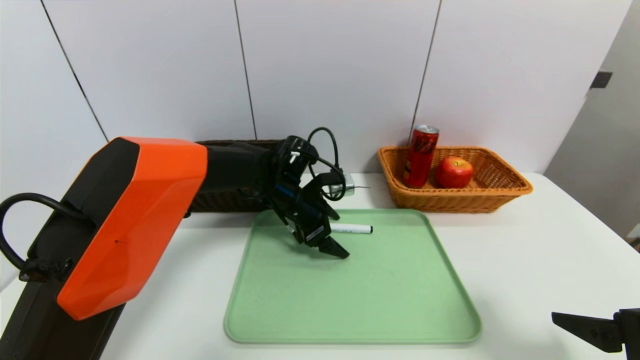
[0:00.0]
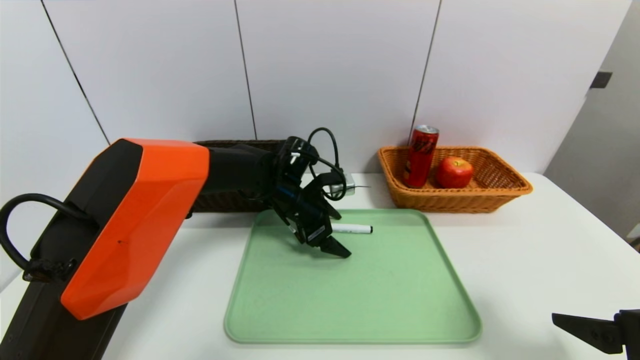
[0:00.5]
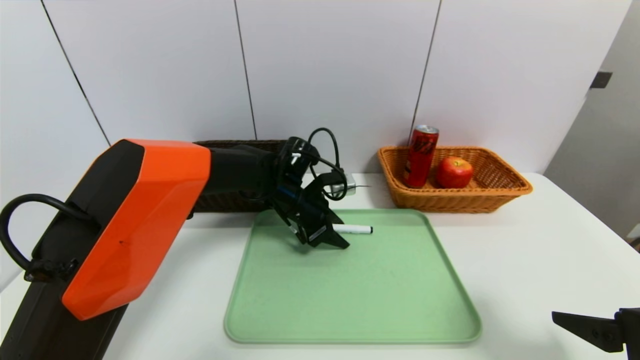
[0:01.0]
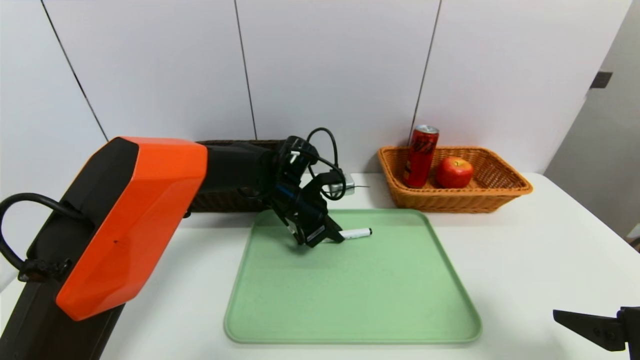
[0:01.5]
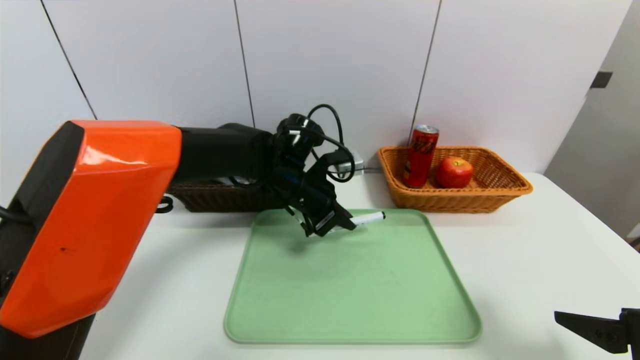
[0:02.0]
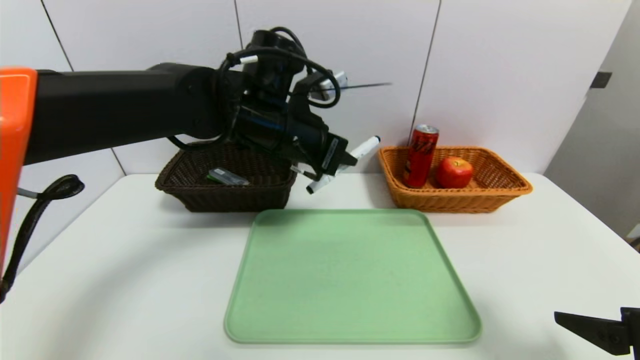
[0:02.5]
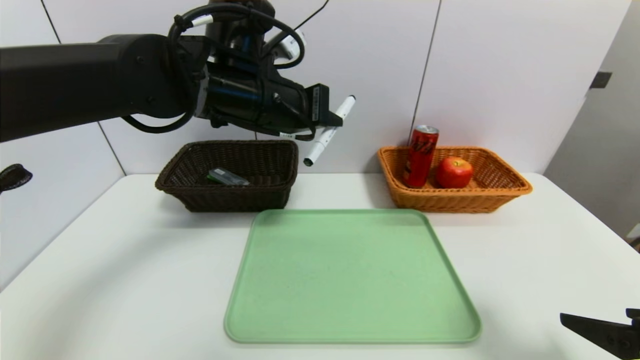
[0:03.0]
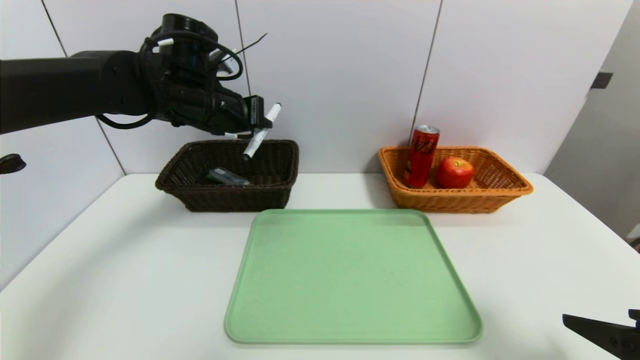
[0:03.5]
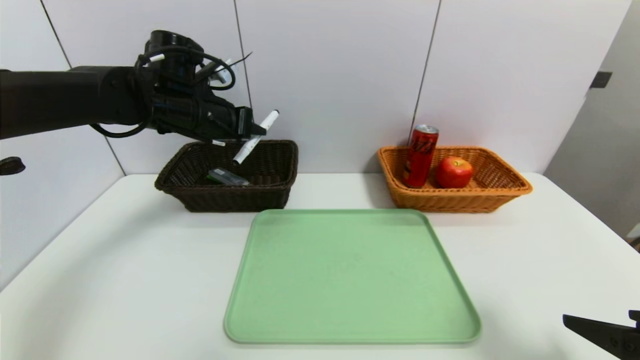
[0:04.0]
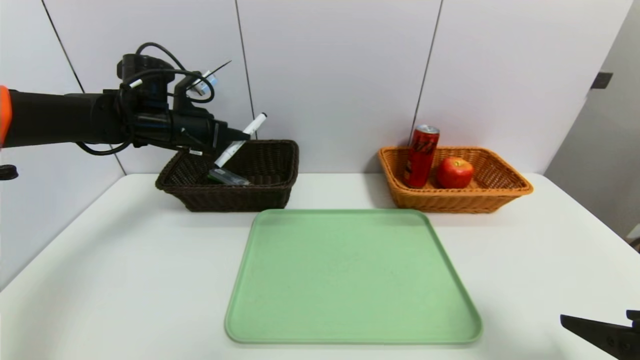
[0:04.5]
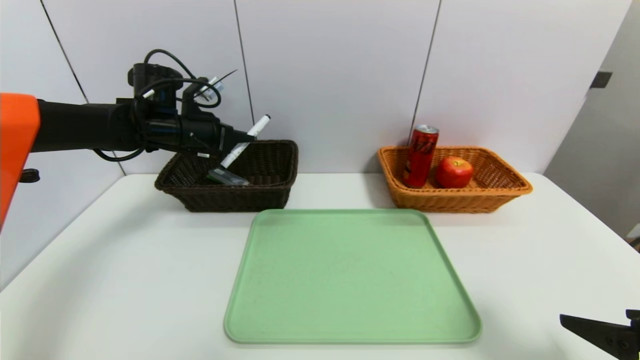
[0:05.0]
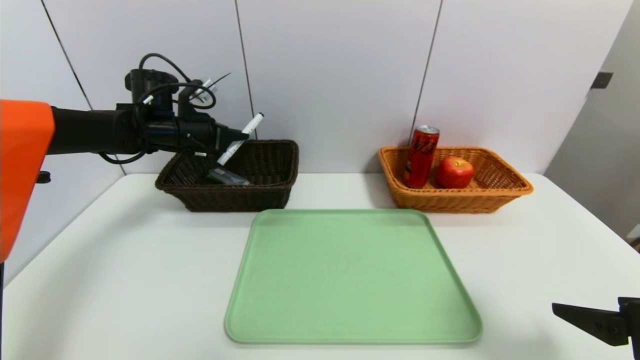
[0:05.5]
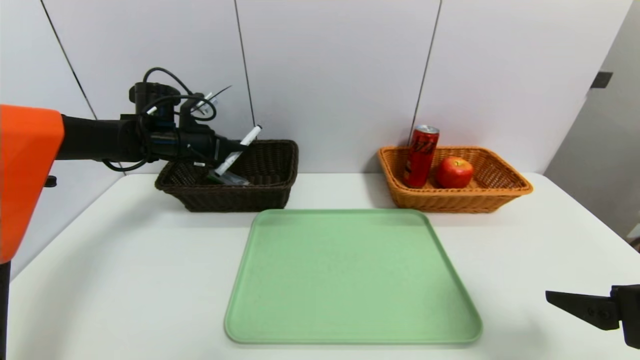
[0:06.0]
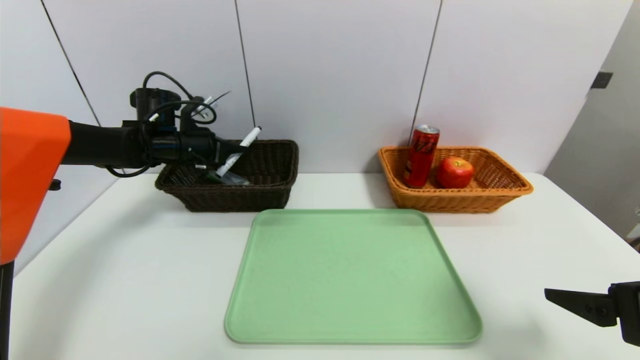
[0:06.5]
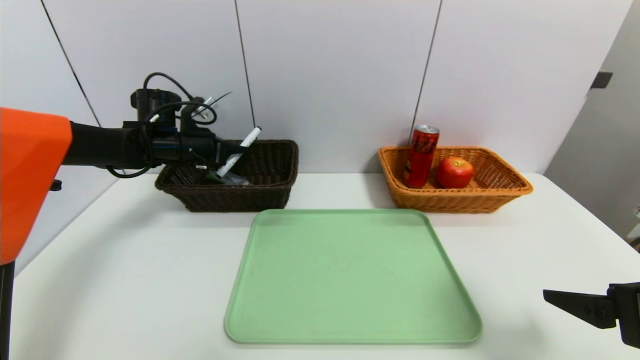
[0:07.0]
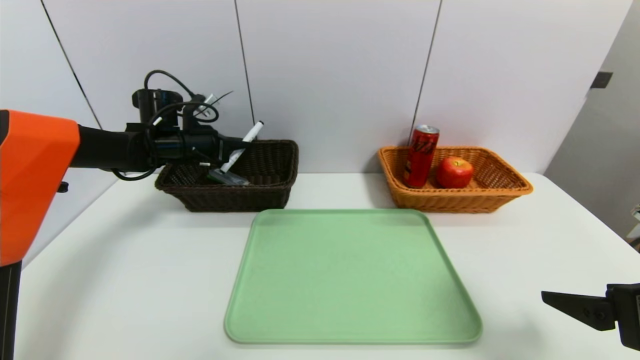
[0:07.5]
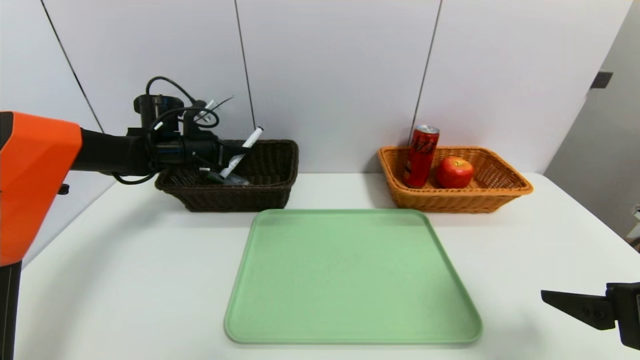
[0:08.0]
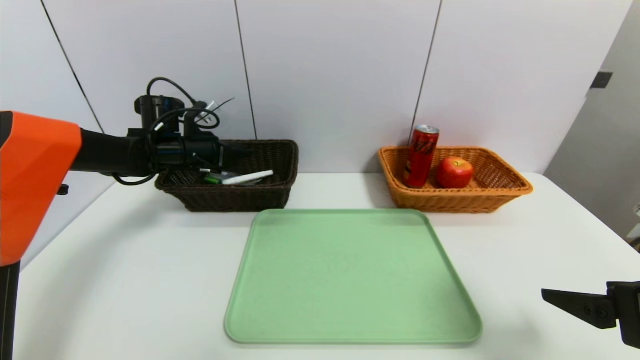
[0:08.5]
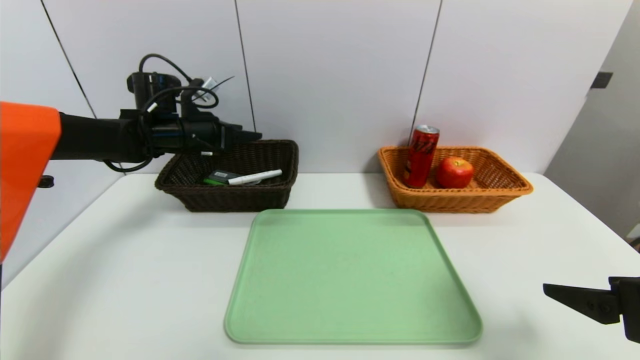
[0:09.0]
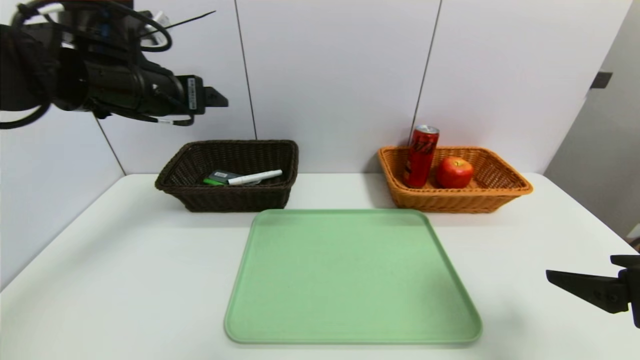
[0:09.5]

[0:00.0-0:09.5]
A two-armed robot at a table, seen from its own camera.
Task of the whole recording: place the food in the right basket with the right gripper, and place the non food items in the left basket with the left gripper.
Step, 0:00.0 to 0:08.5: Grasp the black marker and put it in the left basket.
0:00.0 to 0:02.0: The left gripper travels upward by some 5 cm, and closes its fingers.
0:02.0 to 0:04.0: The left gripper goes some 20 cm to the left and upward.
0:04.0 to 0:05.5: The left gripper travels to the left and forward by roughly 5 cm.
0:05.5 to 0:07.5: The grippers stay close to where they were, moving slightly.
0:07.5 to 0:09.5: The left gripper goes approximately 20 cm backward and upward, and opens its fingers.

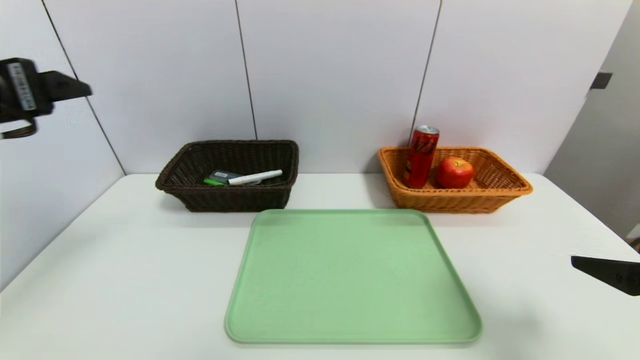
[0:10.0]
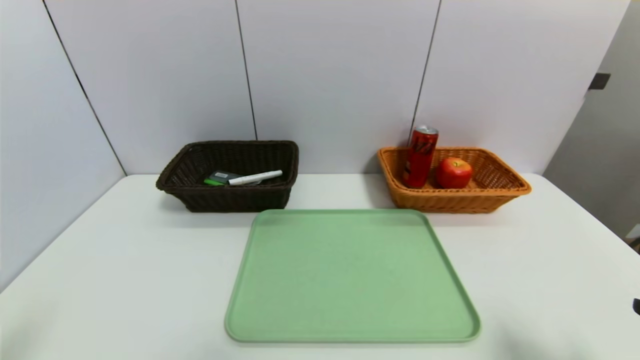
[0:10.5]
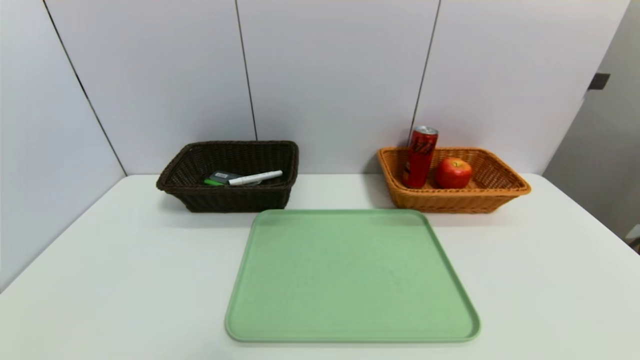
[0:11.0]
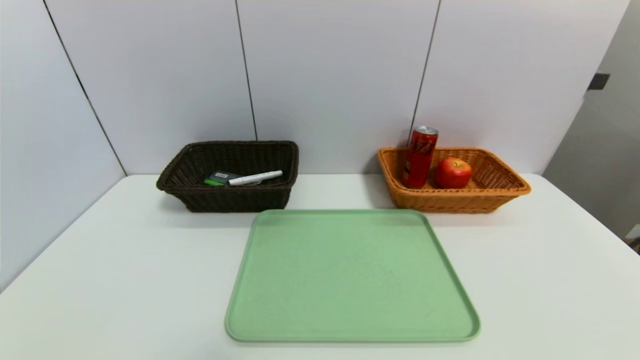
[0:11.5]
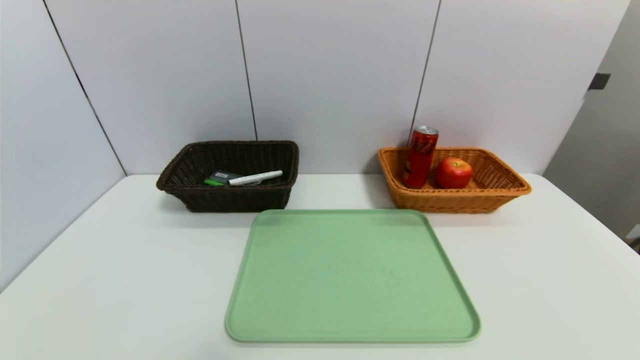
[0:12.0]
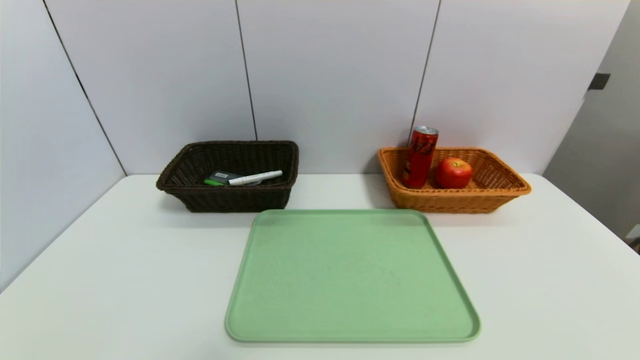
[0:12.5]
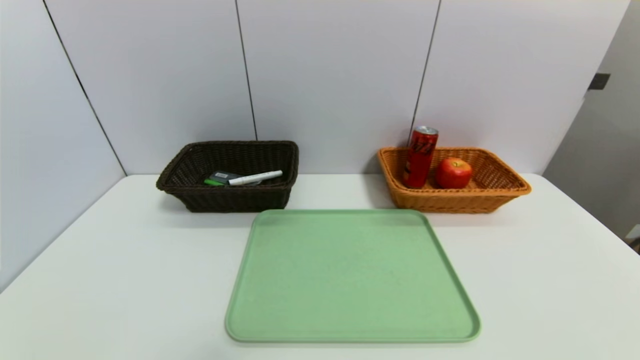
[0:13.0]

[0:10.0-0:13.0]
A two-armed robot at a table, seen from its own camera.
Task of the whole recording: place the food in the right basket with the right gripper, and place the non food items in the left basket with the left gripper.
0:10.0 to 0:11.5: The left gripper goes approximately 30 cm downward and backward, while the right gripper shifts some 20 cm backward and downward.

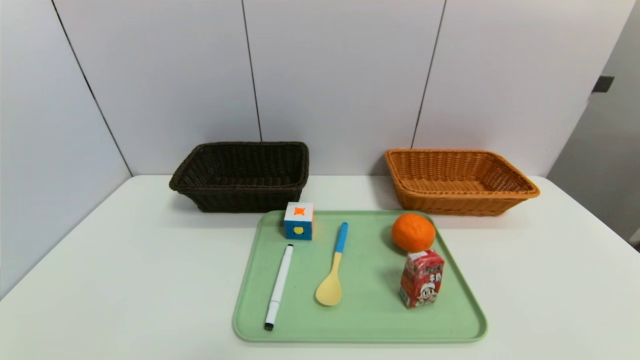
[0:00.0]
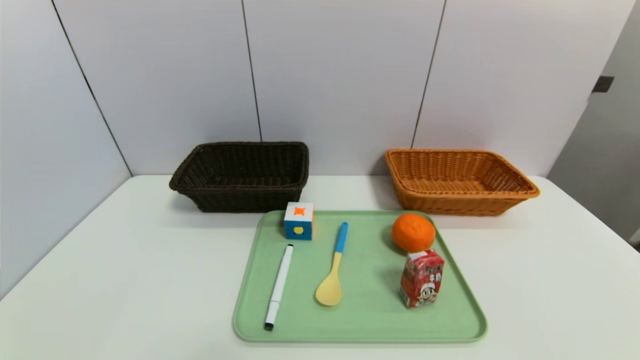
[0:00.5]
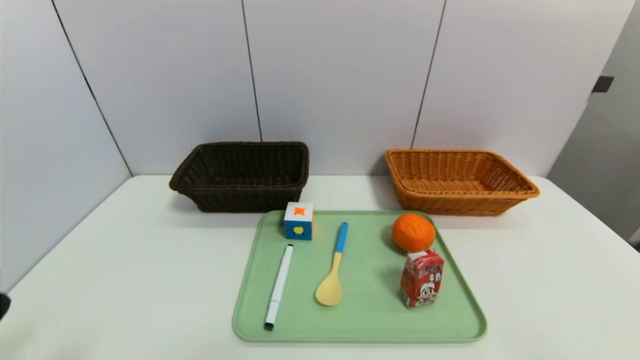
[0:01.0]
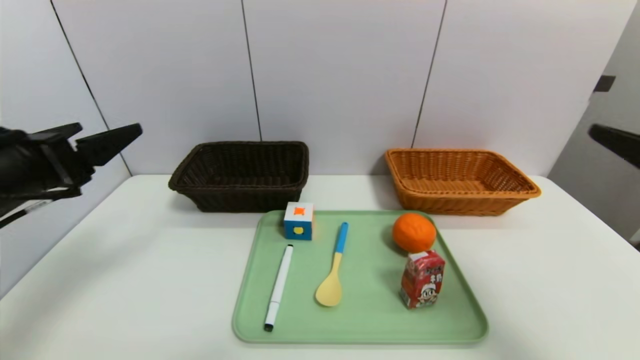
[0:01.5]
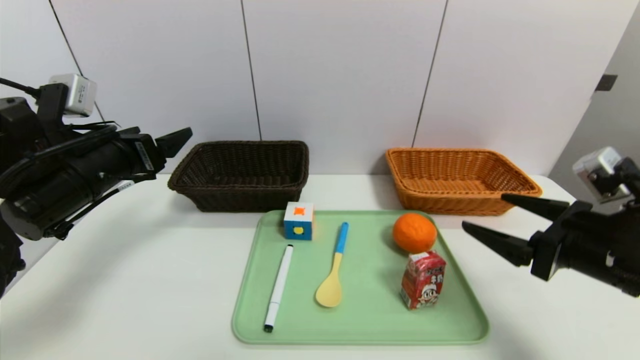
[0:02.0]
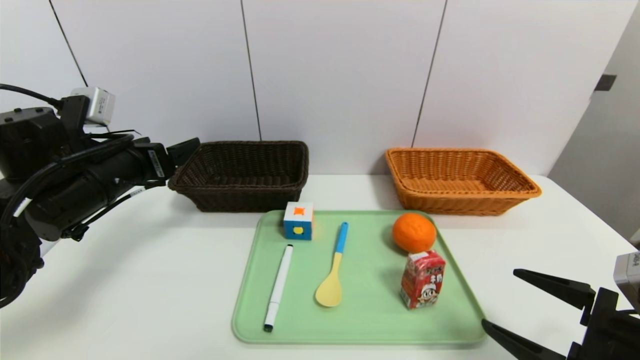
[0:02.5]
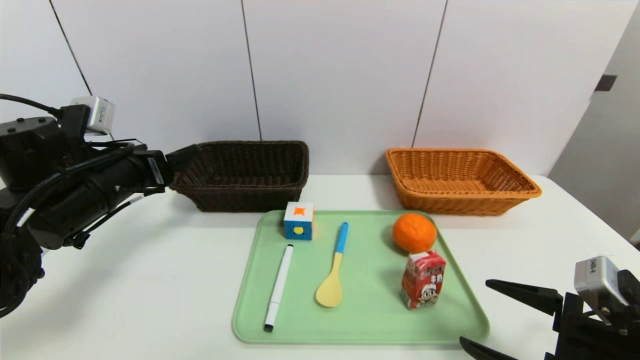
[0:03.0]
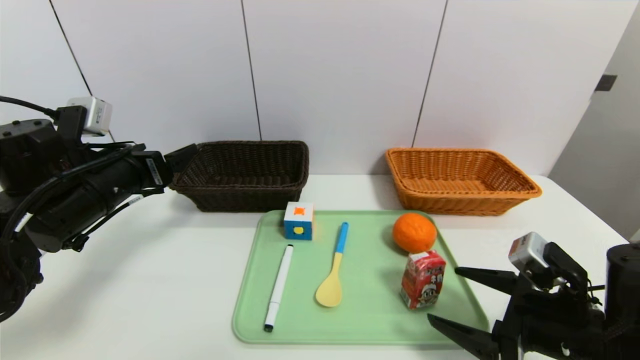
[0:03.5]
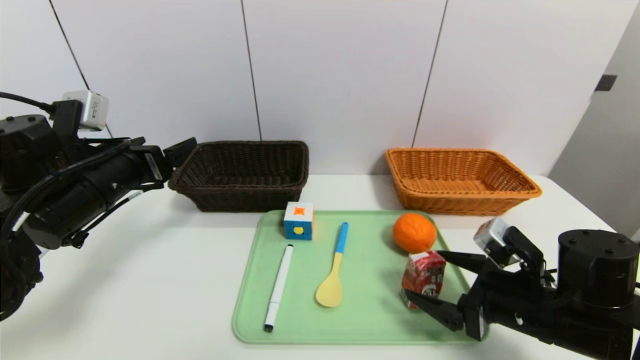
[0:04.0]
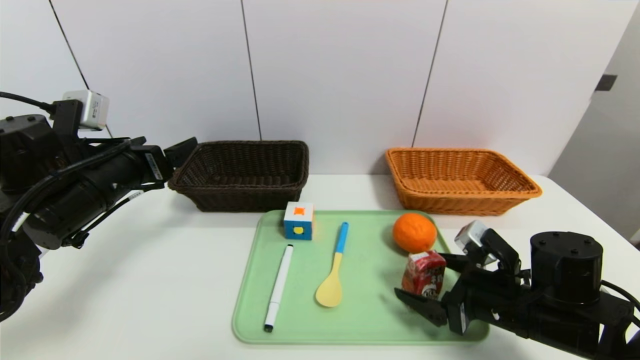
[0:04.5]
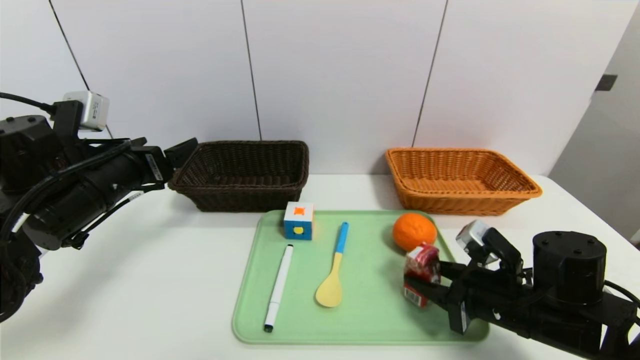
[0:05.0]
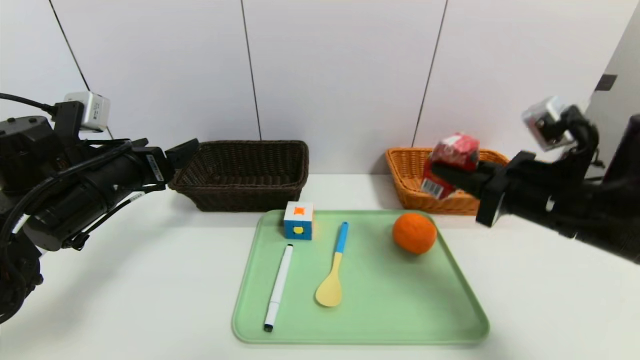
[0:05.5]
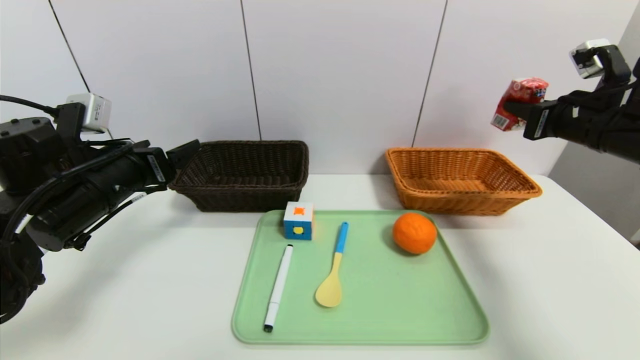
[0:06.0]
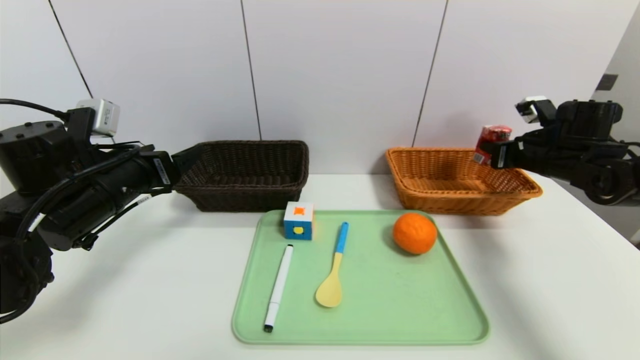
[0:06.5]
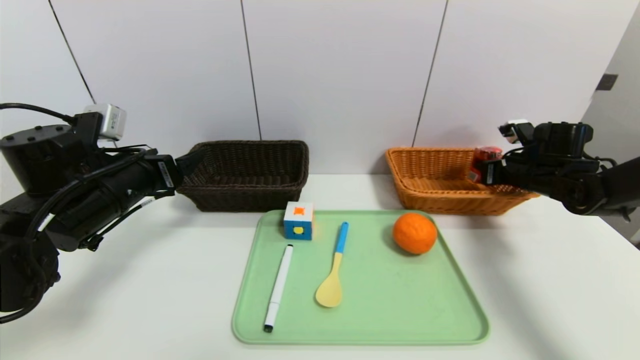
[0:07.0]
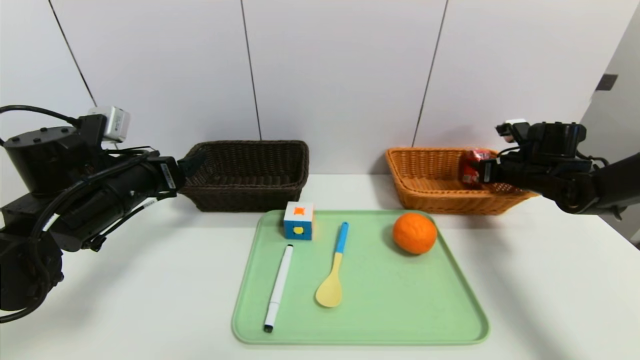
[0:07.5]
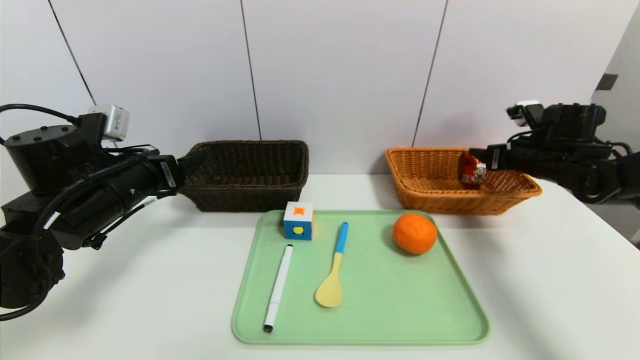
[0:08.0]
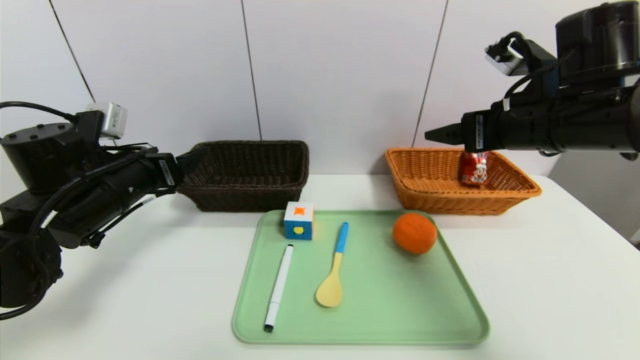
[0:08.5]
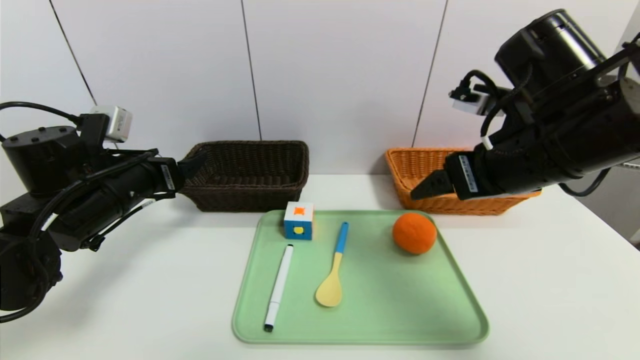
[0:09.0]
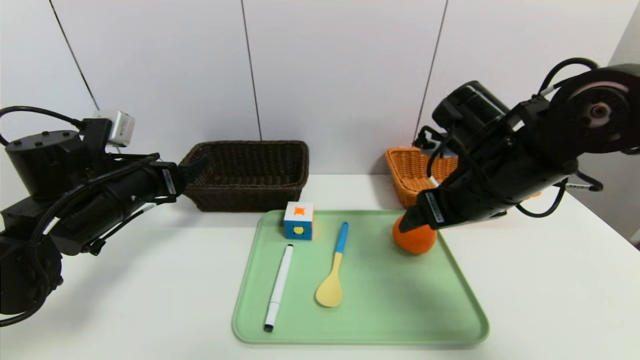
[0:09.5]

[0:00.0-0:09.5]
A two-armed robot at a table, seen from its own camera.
Task of the whole recording: place the food in the right basket with the right gripper, and place the non food items in the left basket with the left gripper.
Step, 0:00.0 to 0:08.0: Grasp the milk and put it in the right basket.
0:00.0 to 0:02.0: Both grippers move forward and upward, about 30 cm.
0:02.0 to 0:04.0: The right gripper is displaced downward by roughly 10 cm, and moves some 5 cm backward and comes back.
0:04.0 to 0:05.5: The right gripper shifts some 10 cm upward, and closes its fingers.
0:05.5 to 0:07.5: The right gripper goes approximately 25 cm forward and to the right.
0:07.5 to 0:09.5: The right gripper goes some 25 cm to the left, backward and upward, and opens.
